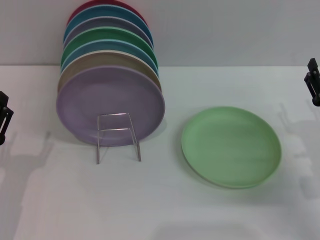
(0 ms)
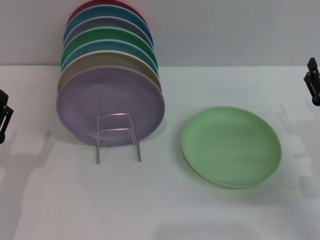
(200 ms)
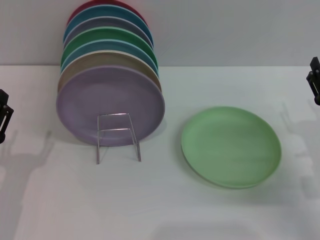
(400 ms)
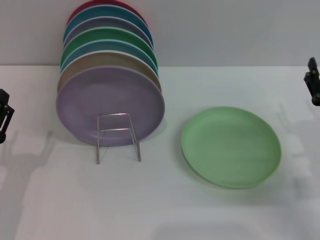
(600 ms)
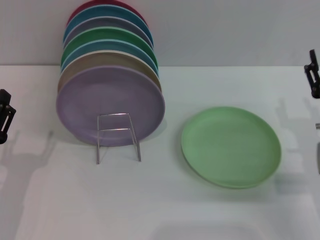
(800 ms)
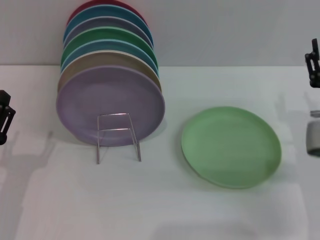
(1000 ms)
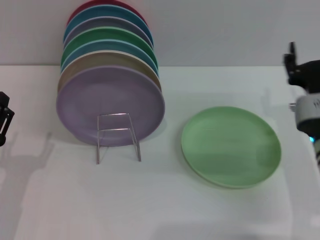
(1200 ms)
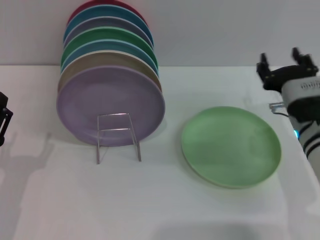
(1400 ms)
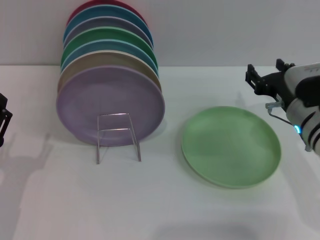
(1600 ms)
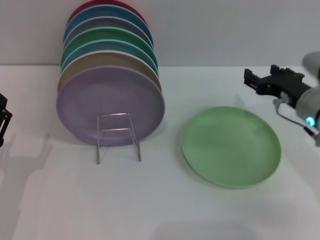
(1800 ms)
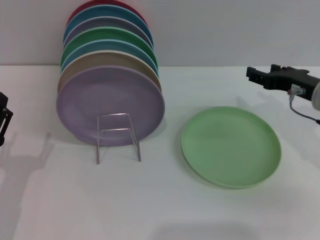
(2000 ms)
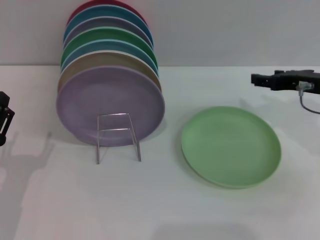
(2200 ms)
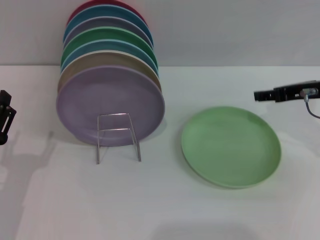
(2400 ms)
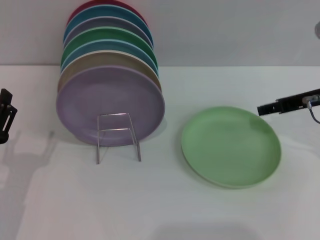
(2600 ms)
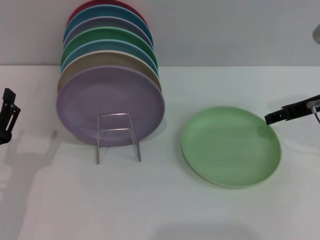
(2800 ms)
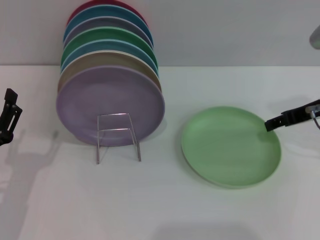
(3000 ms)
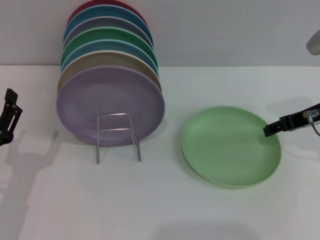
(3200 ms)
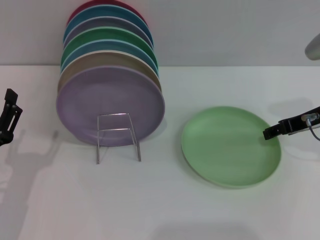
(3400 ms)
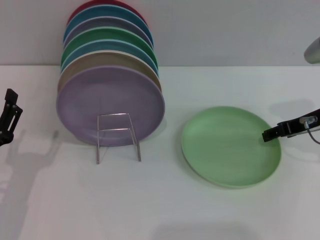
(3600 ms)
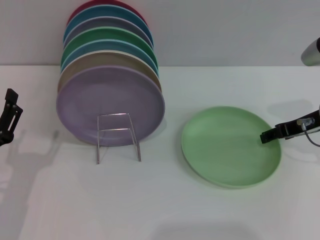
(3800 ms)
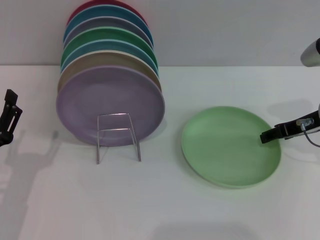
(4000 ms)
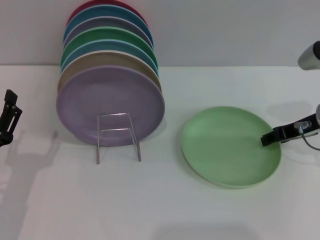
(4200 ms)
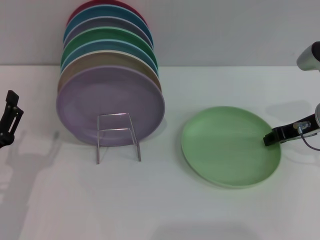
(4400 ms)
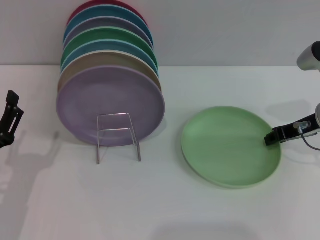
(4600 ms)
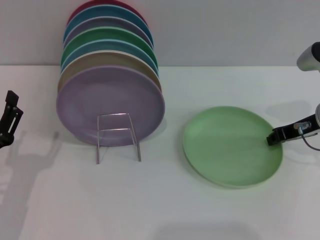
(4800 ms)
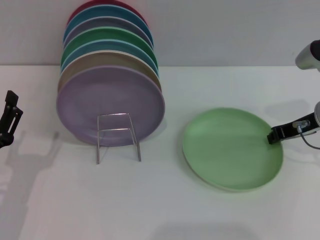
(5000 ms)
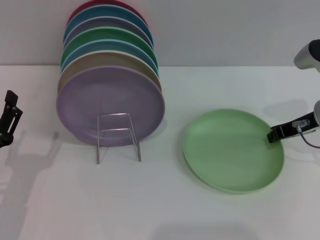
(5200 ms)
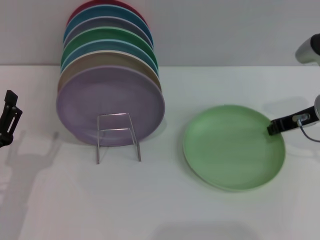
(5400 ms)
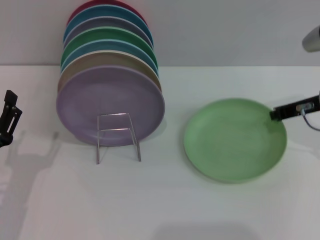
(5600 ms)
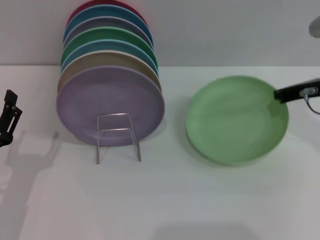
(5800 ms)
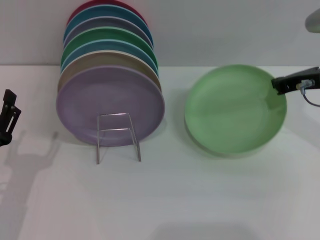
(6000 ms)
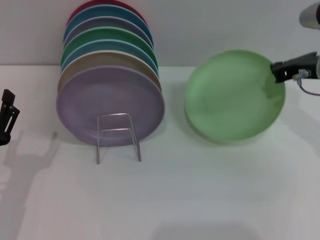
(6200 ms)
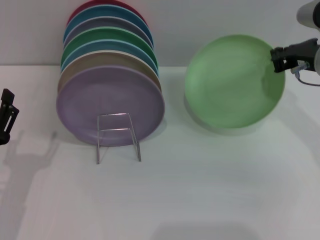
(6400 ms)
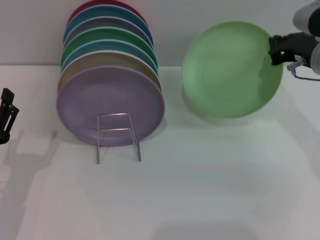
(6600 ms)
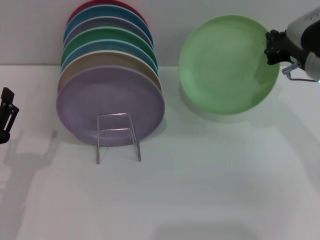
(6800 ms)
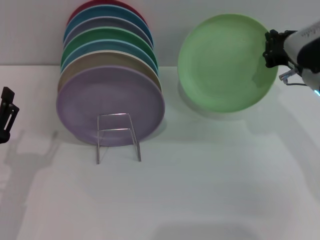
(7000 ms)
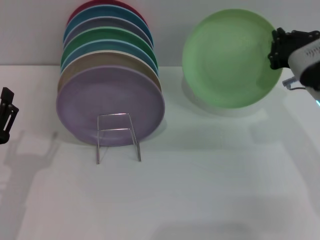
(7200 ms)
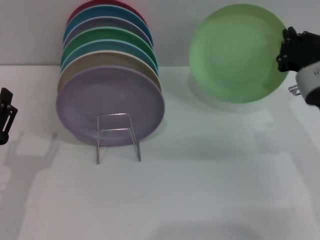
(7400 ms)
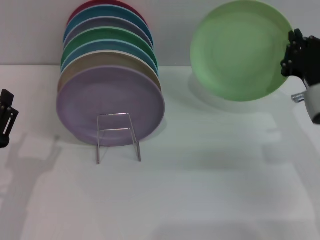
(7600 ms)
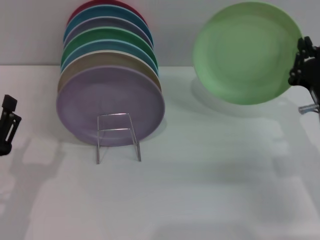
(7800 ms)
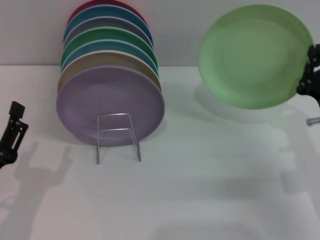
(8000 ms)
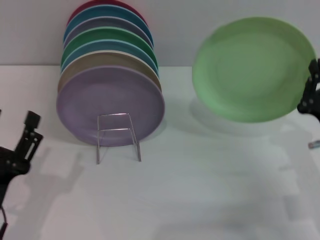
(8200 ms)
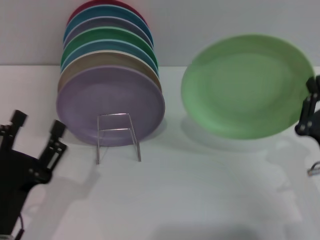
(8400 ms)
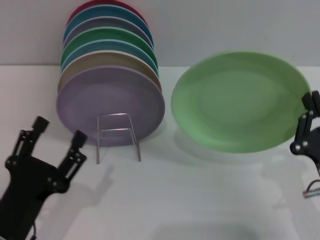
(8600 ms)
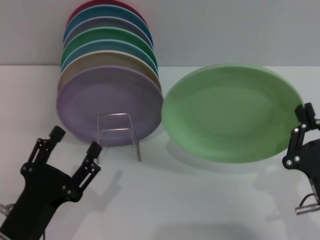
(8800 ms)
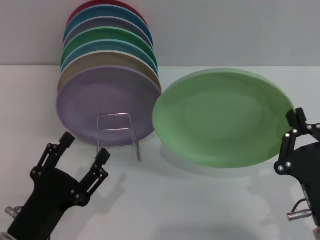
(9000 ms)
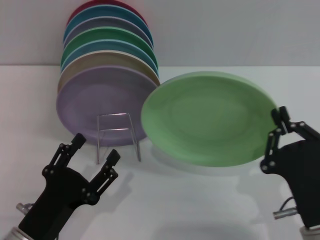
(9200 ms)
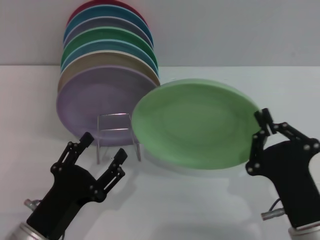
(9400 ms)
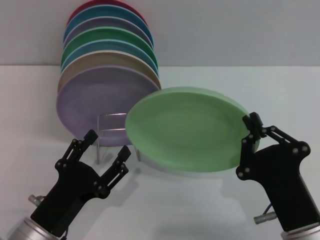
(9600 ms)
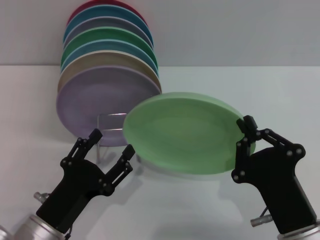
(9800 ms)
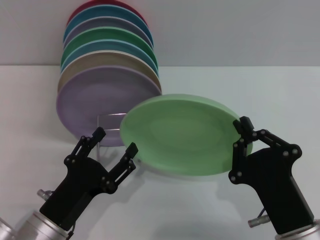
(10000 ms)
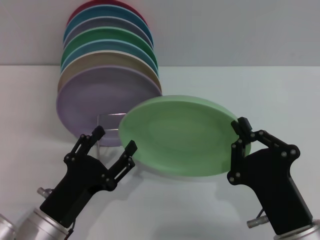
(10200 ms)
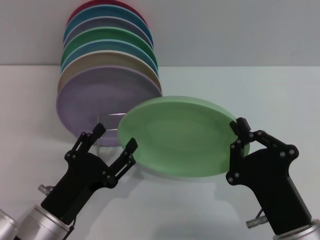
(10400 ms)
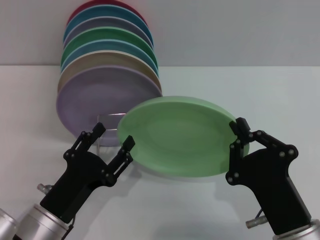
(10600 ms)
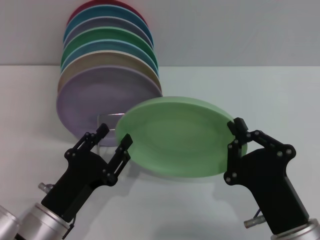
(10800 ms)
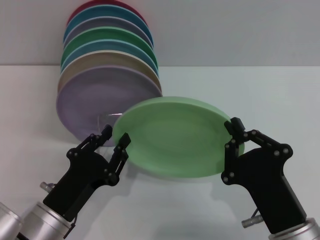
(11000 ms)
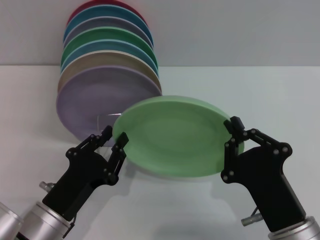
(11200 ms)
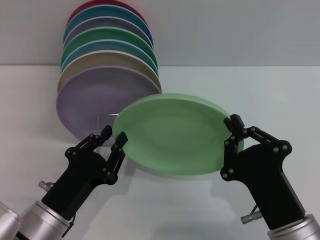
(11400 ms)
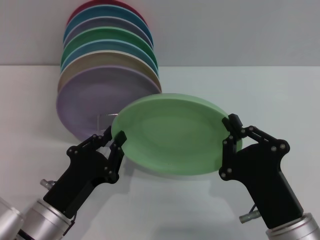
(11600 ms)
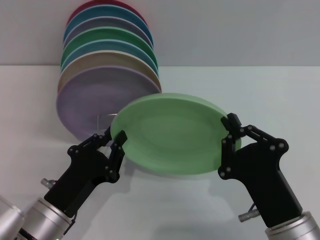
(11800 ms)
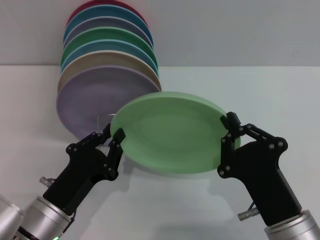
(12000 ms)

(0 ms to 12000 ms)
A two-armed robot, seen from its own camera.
Task of the whole recording: Grip the plate with one hand, pass it to the other, then set it on the shelf.
Step, 0 ms - 7200 ms: Pick up the plate with the right gripper.
0 ms - 1600 ms: The right gripper is displaced to the left and forward by about 10 cm.
1600 ms - 3000 ms: The right gripper heads upward and to the right, covering approximately 10 cm.
3000 ms - 4400 ms: There are only small adjustments of the grippers.
4400 ms - 6000 ms: The right gripper changes place by about 5 cm, and closes.
6000 ms - 7600 ms: The right gripper travels downward and backward by approximately 10 cm.
7600 ms - 9000 ms: The right gripper shifts some 15 cm backward. The left gripper is displaced to the right by roughly 5 cm.
10400 ms - 12000 ms: The left gripper closes its fingers.

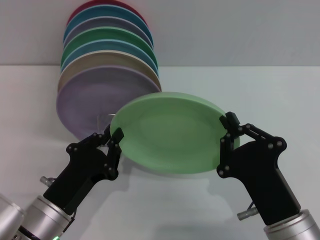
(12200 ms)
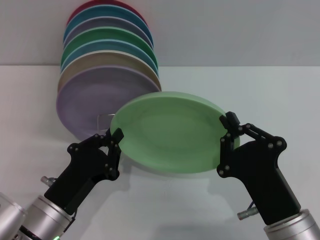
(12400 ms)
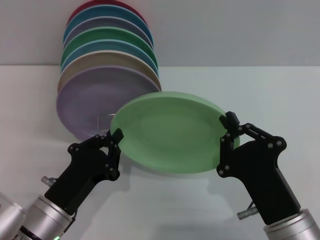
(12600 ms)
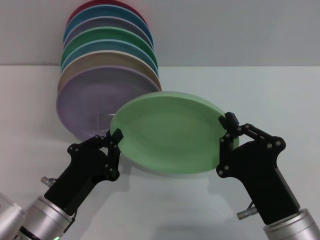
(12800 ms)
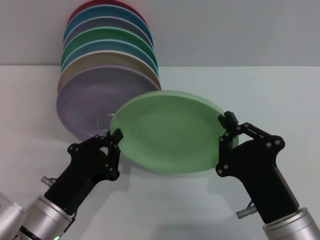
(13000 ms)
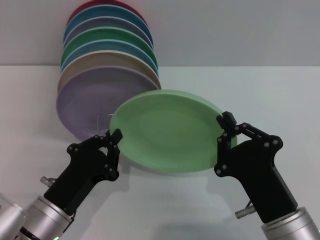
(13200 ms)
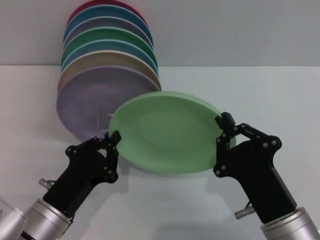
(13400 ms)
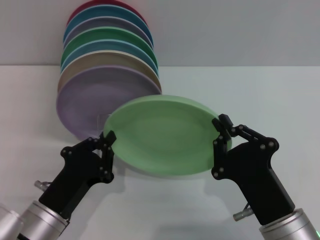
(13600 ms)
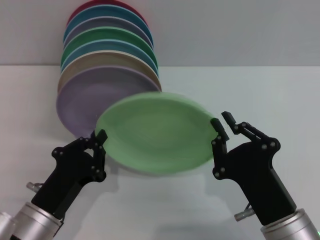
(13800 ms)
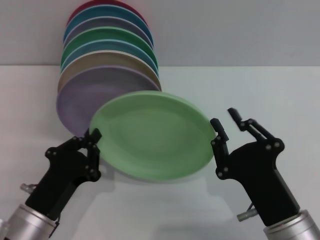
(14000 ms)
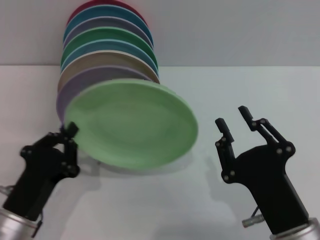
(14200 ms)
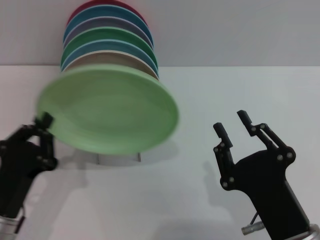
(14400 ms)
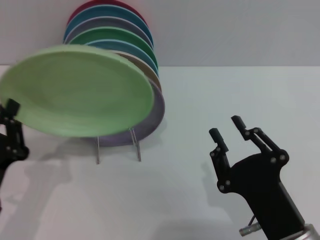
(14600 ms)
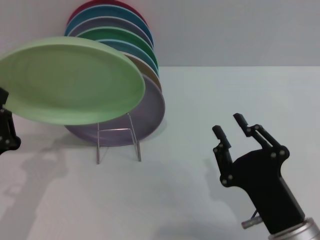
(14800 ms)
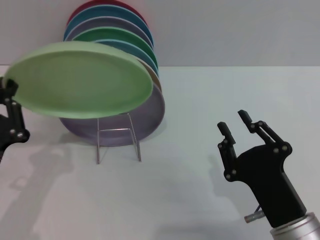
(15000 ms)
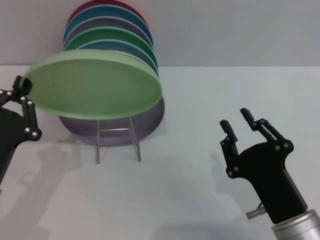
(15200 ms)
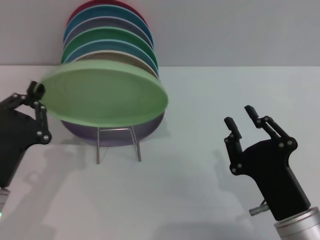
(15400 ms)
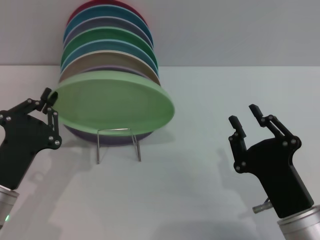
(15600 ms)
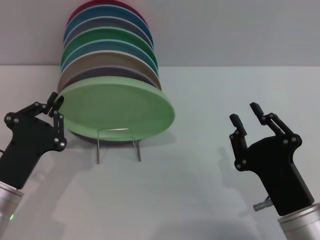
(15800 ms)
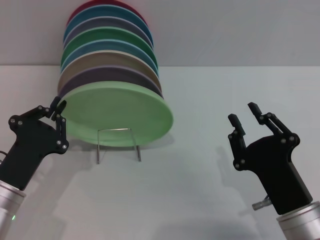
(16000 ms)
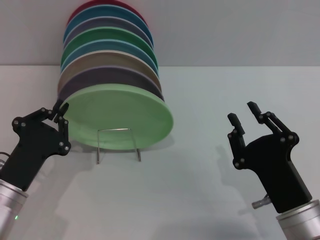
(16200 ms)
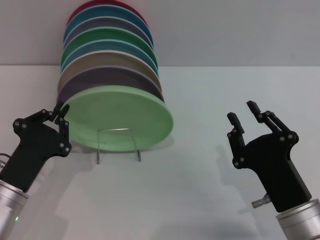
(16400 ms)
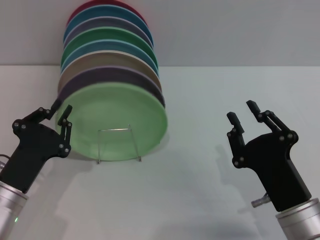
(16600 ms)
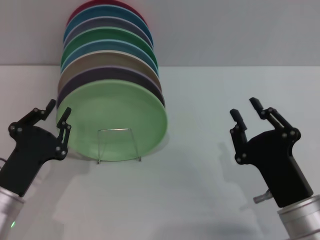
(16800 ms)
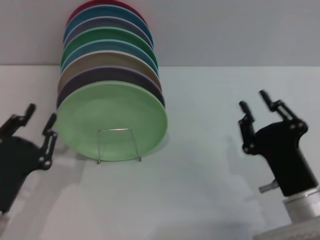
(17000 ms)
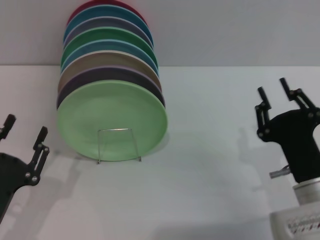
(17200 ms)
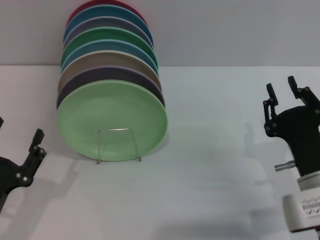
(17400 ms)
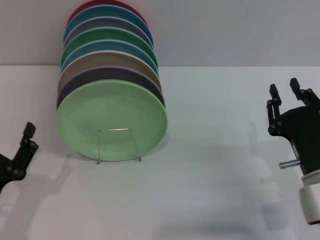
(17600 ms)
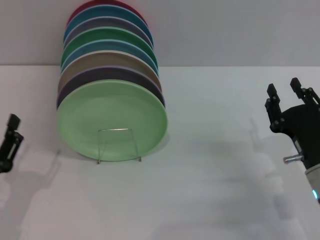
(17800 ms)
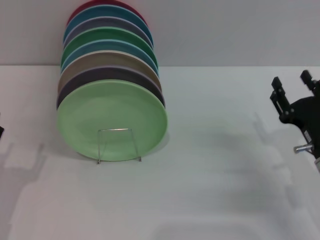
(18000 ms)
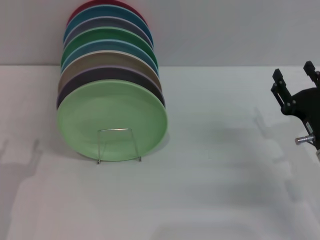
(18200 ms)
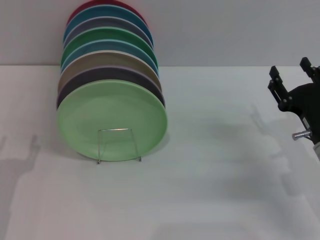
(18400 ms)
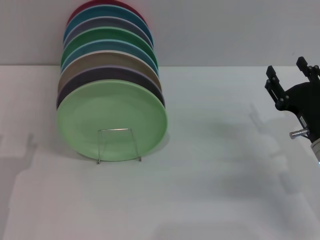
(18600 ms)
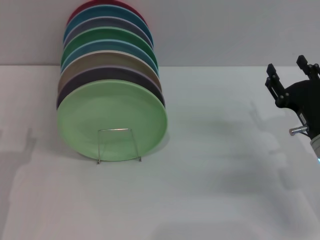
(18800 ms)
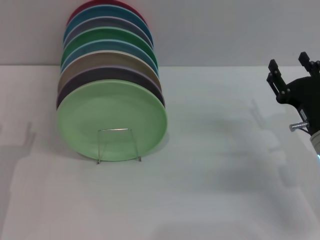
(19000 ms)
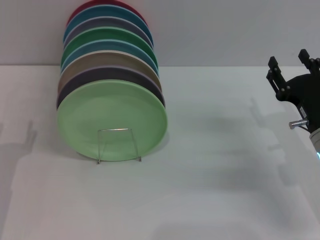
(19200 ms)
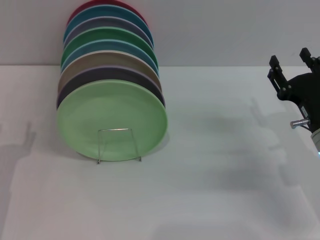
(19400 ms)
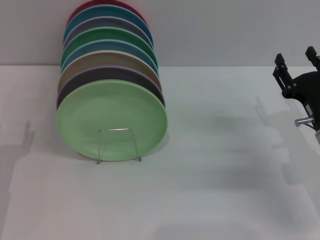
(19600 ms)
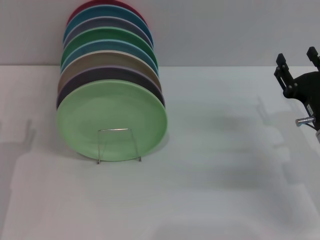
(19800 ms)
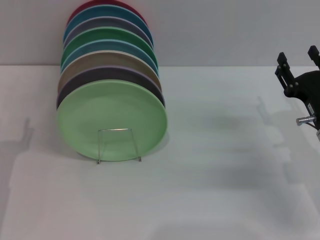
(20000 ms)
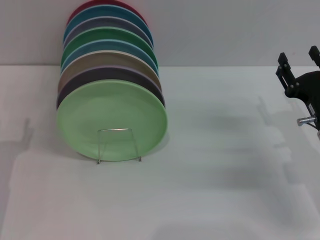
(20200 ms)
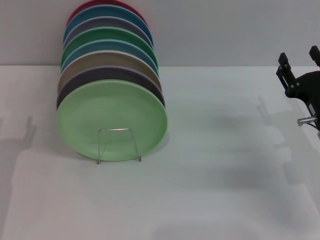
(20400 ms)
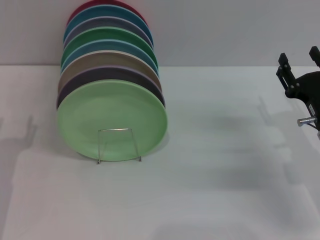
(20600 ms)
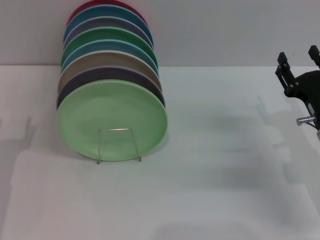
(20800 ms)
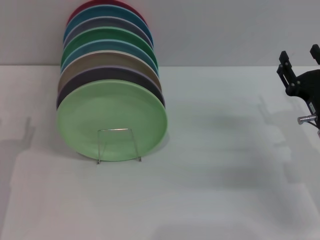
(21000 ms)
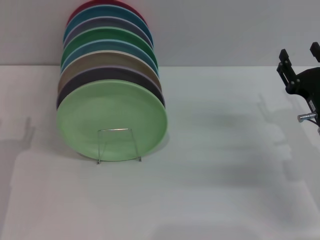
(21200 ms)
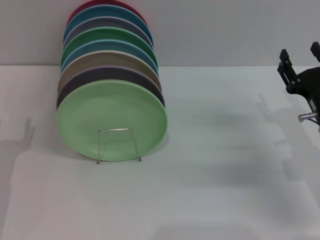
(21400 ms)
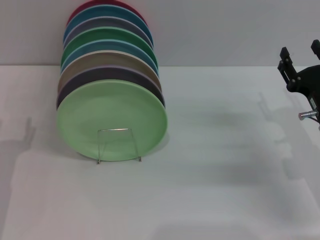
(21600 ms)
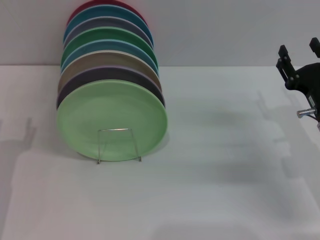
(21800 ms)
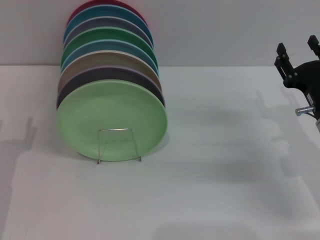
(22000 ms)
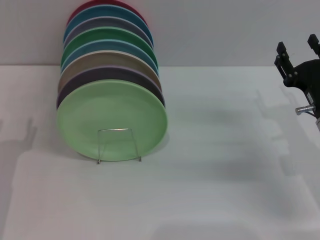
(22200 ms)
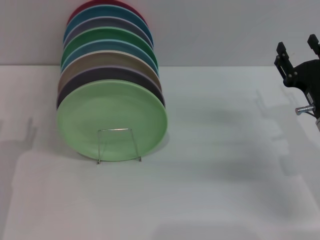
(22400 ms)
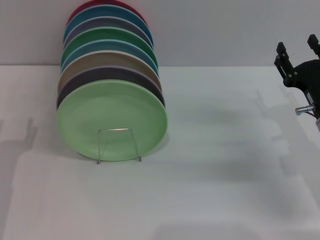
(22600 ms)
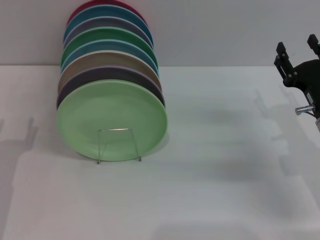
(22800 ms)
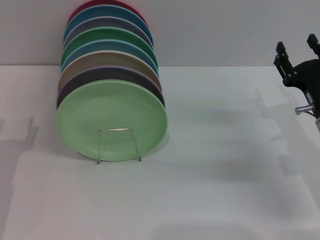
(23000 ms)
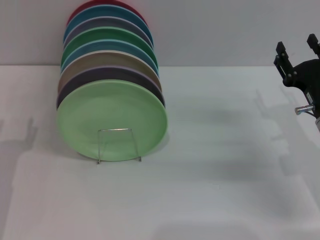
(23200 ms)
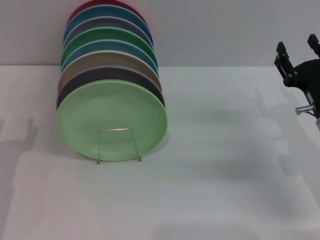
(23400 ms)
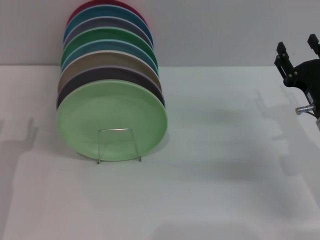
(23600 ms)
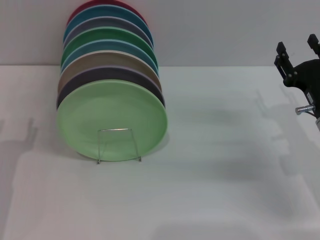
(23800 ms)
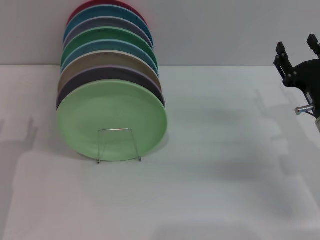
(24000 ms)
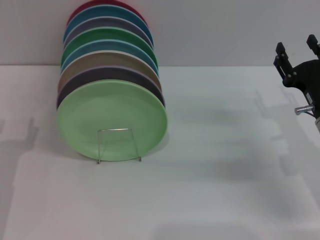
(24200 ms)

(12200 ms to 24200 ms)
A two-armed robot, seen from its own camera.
Task of the whole recording: Grip the plate with one hand, pass it to the other, then set it on the shelf.
Step, 12200 ms - 14800 ms: Pass the plate from the right gripper to the left gripper.
Step, 15000 ms - 20200 ms: Place the plate on the shelf with the left gripper.
12200 ms - 13800 ms: There are only small adjustments of the grippers.
13800 ms - 15200 ms: The left gripper travels to the left by about 5 cm, while the right gripper opens its fingers.
16600 ms - 18200 ms: The right gripper heads forward and to the right, covering some 10 cm, and opens up, while the left gripper shifts some 5 cm to the left, and opens up.
18200 ms - 19800 ms: The grippers make only small movements.
19800 ms - 21200 ms: Neither gripper changes place.
21200 ms - 24200 ms: The two grippers keep their place.
